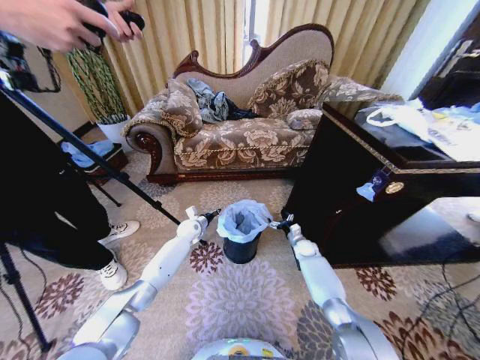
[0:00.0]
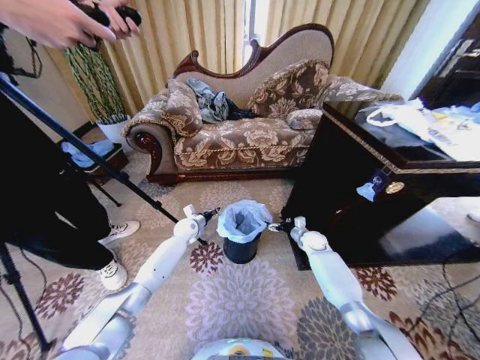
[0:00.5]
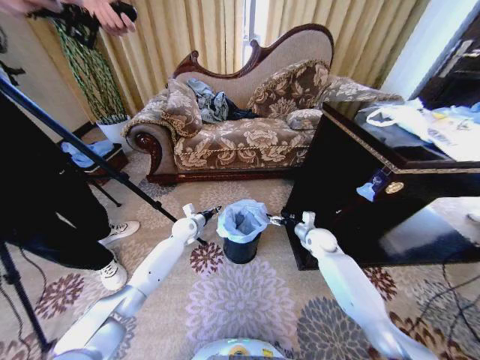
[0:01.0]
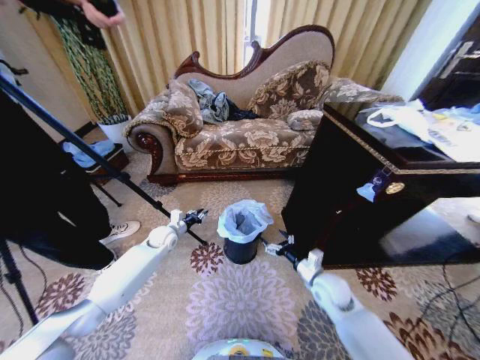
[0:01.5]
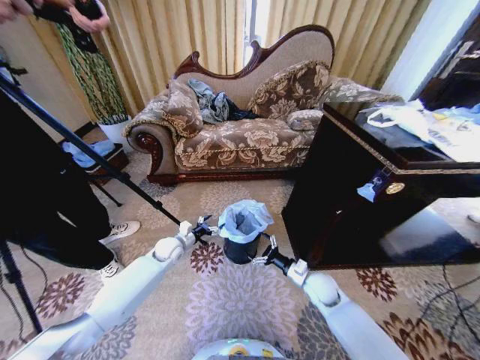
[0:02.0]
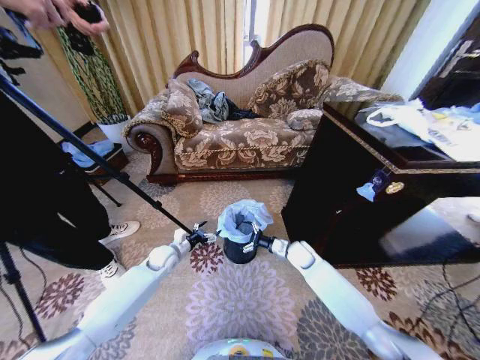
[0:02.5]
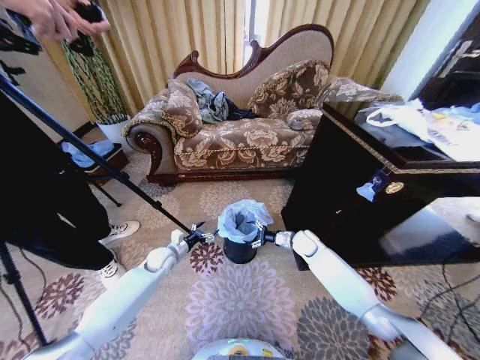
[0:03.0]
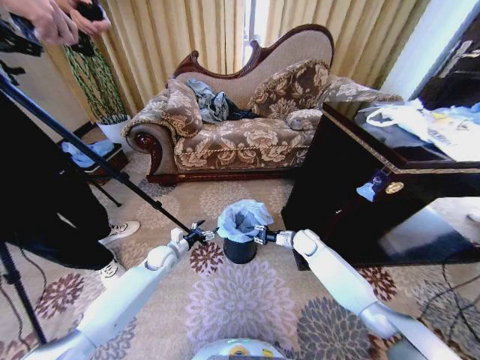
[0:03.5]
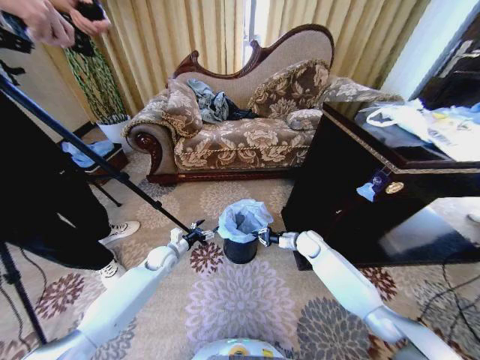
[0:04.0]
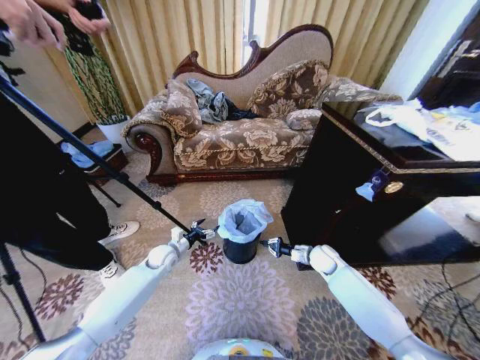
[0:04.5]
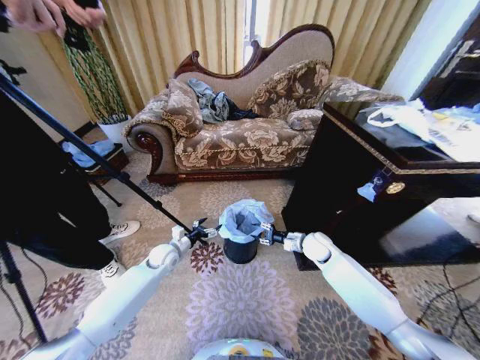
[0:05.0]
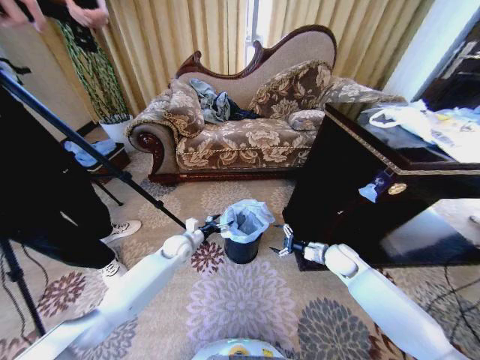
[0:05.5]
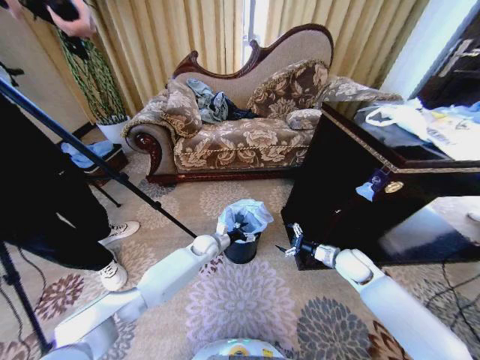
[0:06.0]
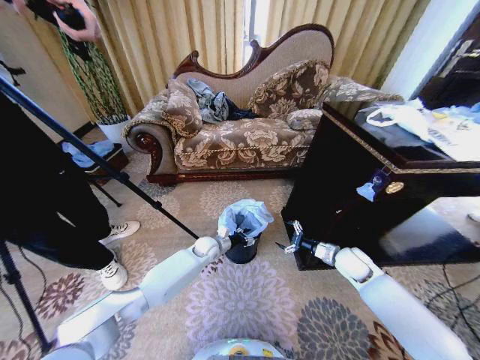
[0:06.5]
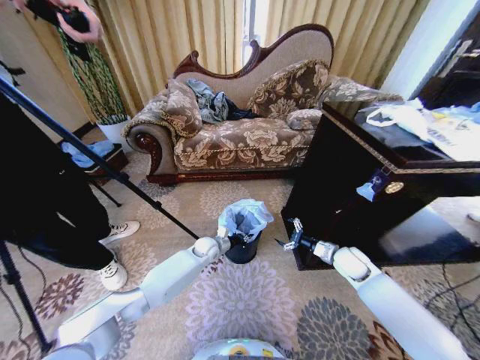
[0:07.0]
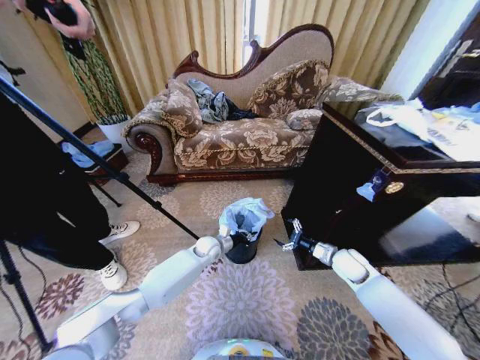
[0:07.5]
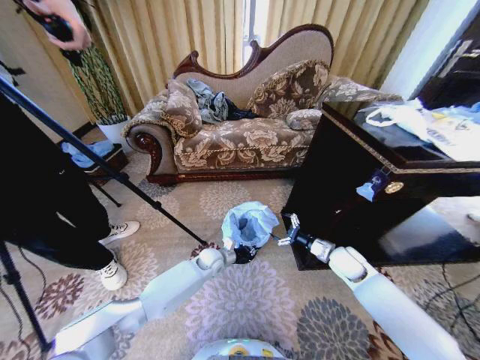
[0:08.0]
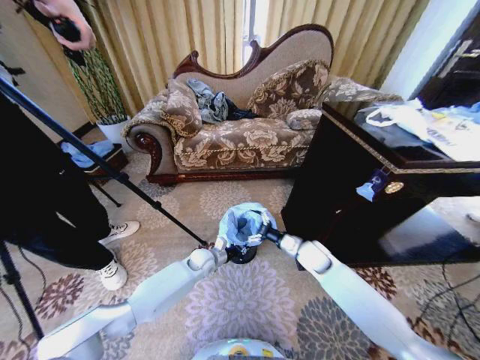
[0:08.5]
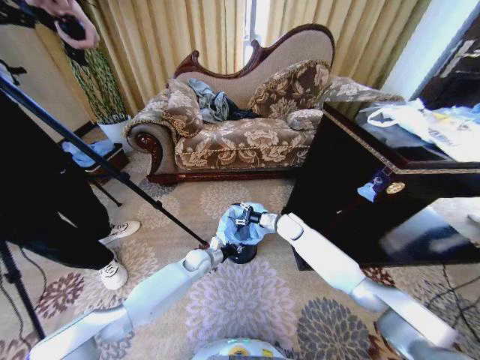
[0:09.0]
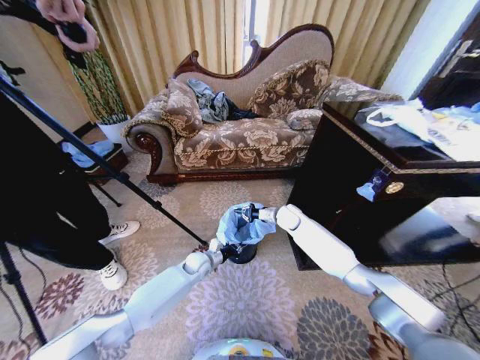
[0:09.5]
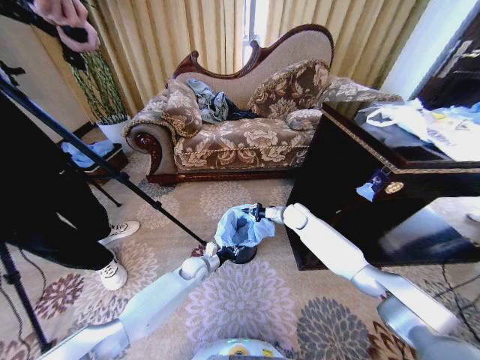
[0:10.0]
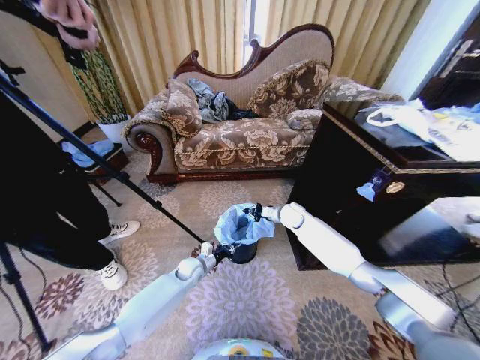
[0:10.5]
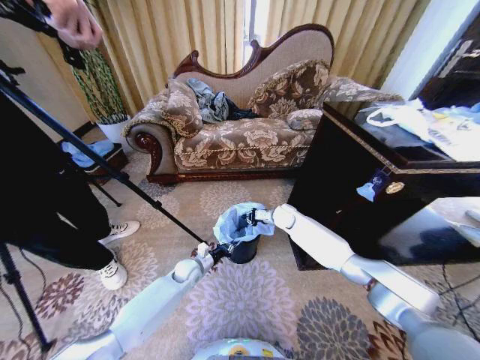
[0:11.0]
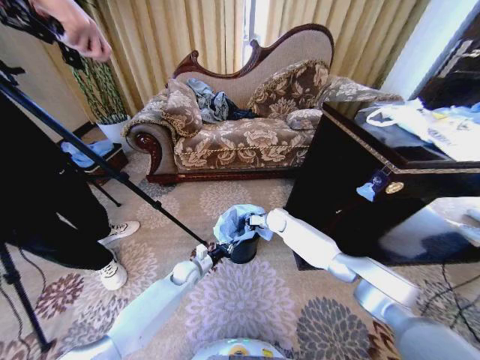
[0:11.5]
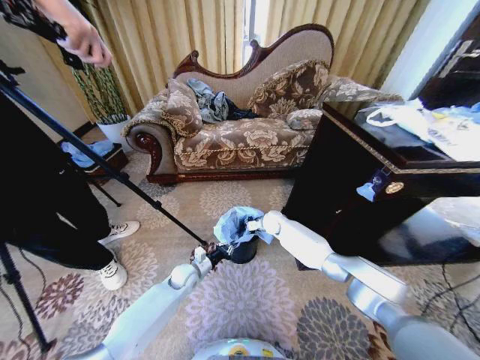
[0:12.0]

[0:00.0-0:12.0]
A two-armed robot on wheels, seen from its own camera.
Task of the whole recording: Place a garbage bag over the trash bin.
0:00.0 to 0:02.0: The right gripper travels backward by approximately 20 cm; the left gripper heads backward, covering roughly 10 cm, and opens.
0:02.0 to 0:04.0: The right gripper moves forward, about 15 cm, and closes up.
0:04.0 to 0:06.0: The left gripper travels to the right by about 15 cm, while the right gripper heads backward and to the right, covering roughly 15 cm, and opens.
0:06.0 to 0:08.0: The left gripper ends up some 5 cm from where it was, and closes up.
0:08.0 to 0:10.0: The left gripper is displaced to the left by some 5 cm; the right gripper moves forward and to the left, about 20 cm, and closes its fingers.
0:10.0 to 0:12.0: The right gripper heads to the left and downward, covering some 10 cm.

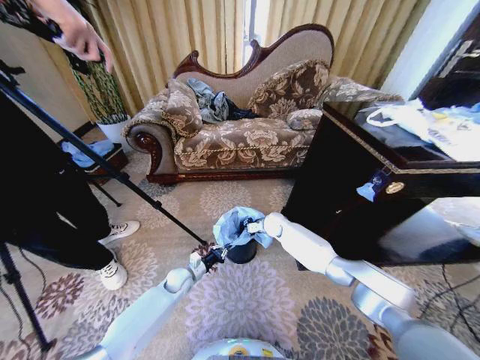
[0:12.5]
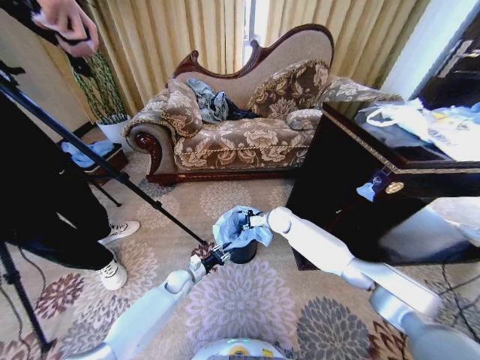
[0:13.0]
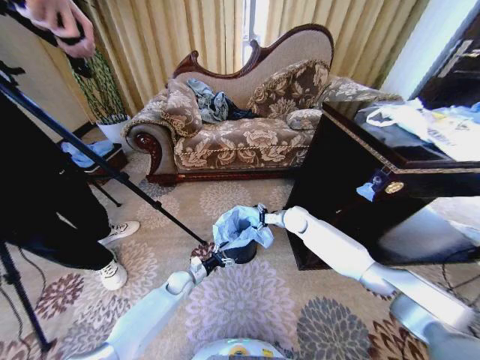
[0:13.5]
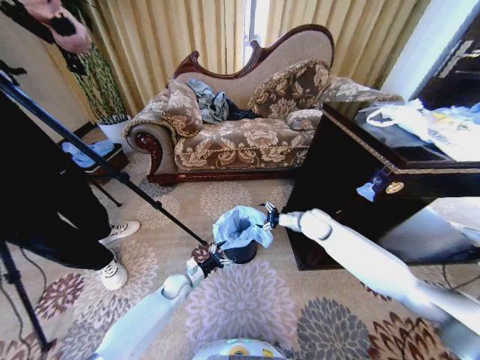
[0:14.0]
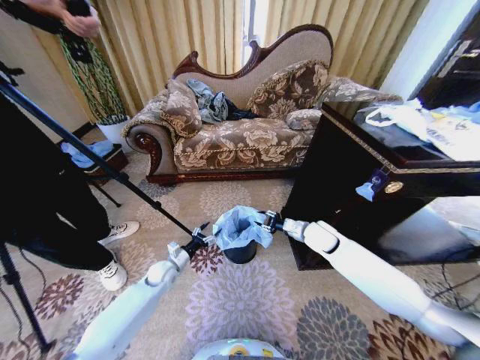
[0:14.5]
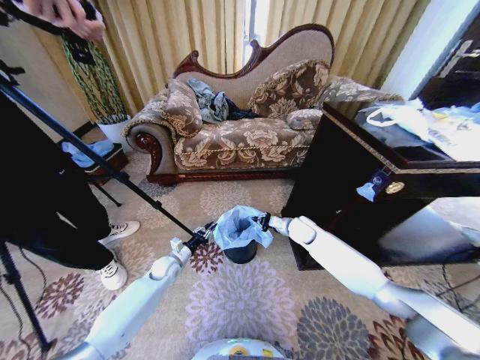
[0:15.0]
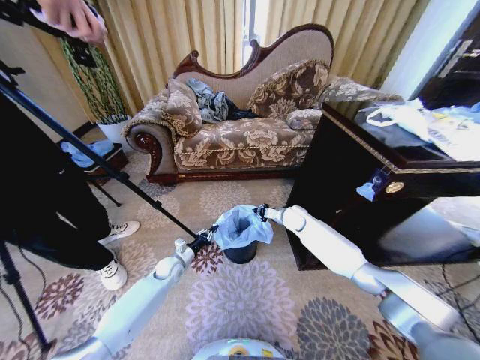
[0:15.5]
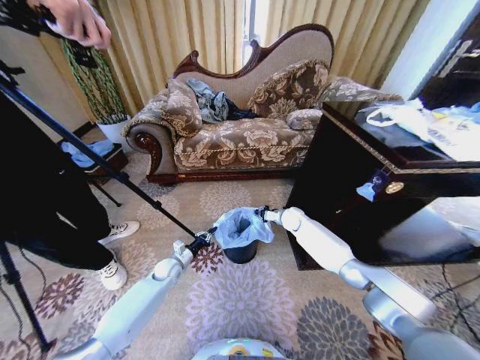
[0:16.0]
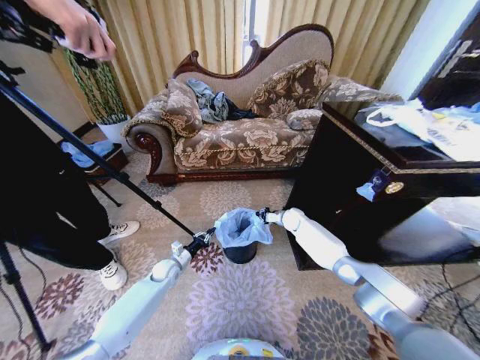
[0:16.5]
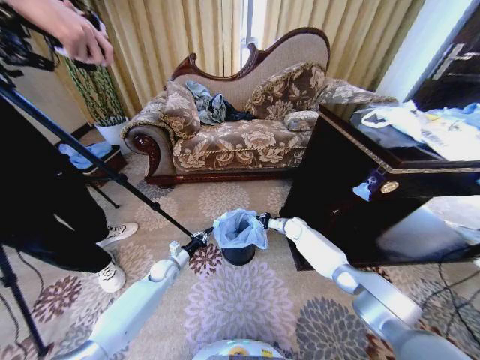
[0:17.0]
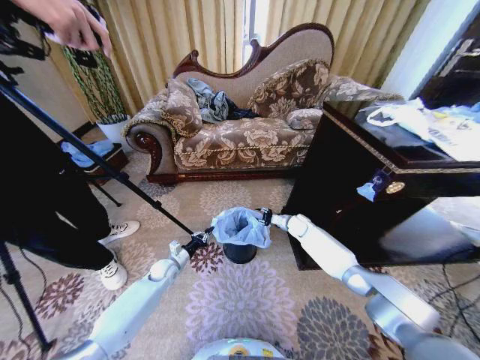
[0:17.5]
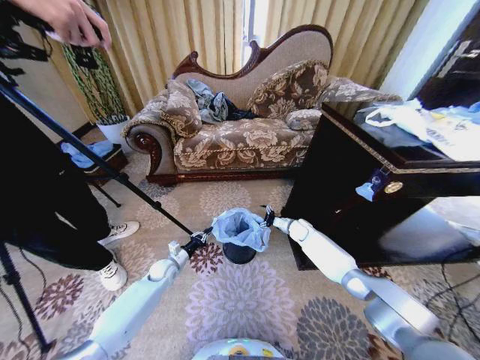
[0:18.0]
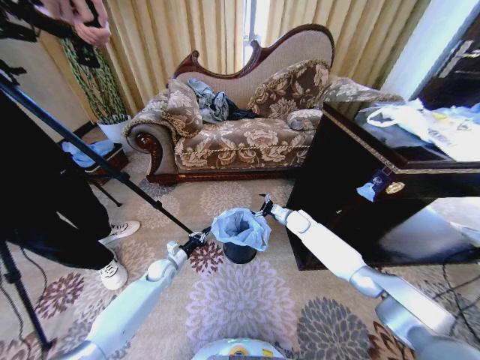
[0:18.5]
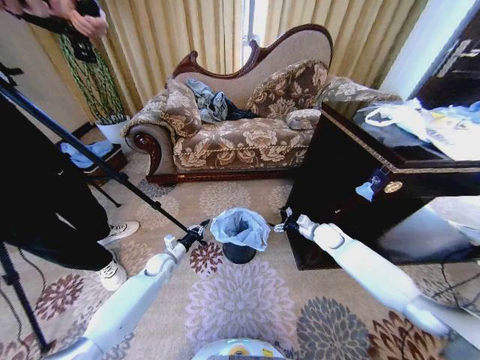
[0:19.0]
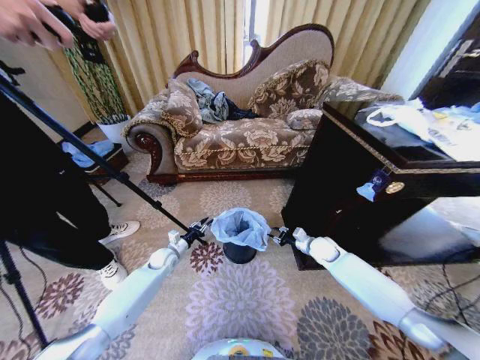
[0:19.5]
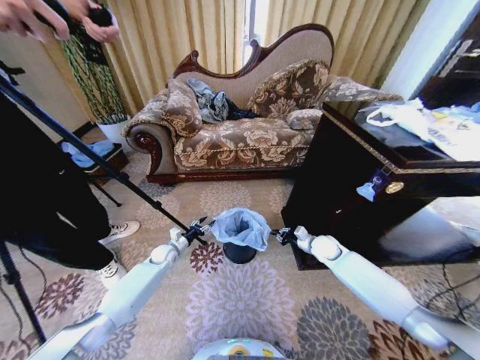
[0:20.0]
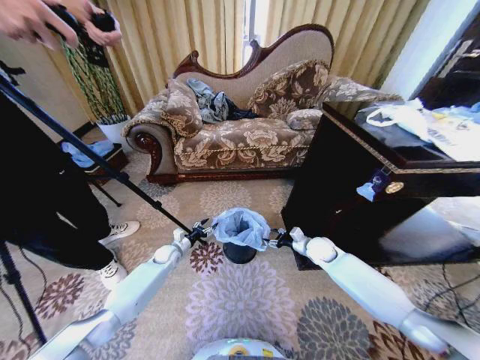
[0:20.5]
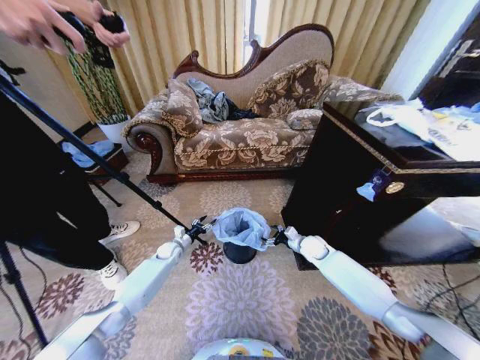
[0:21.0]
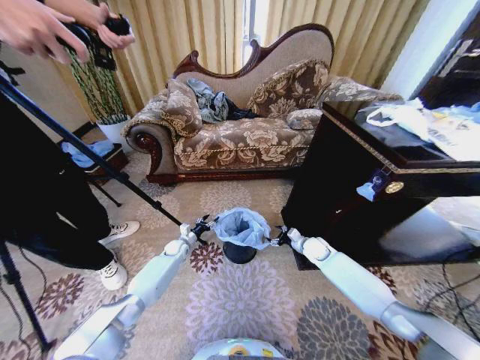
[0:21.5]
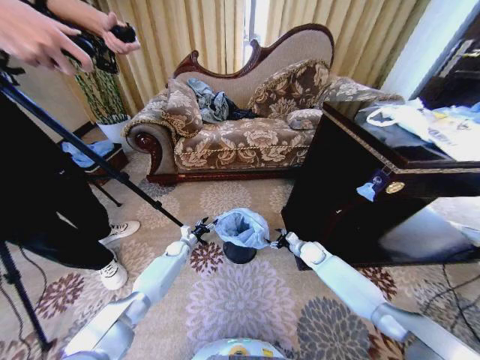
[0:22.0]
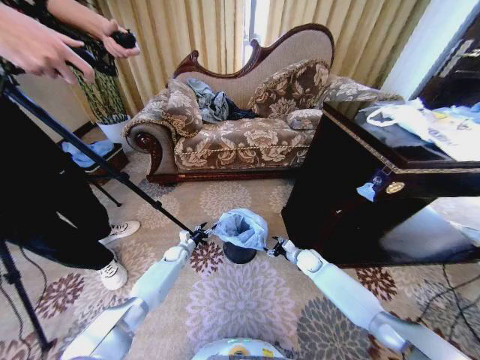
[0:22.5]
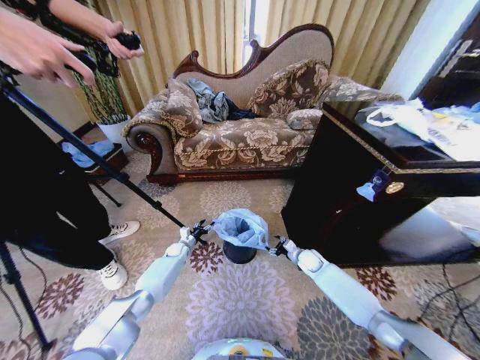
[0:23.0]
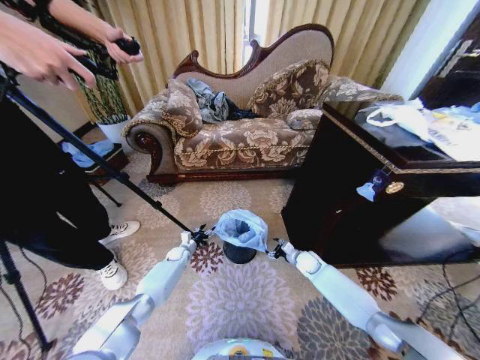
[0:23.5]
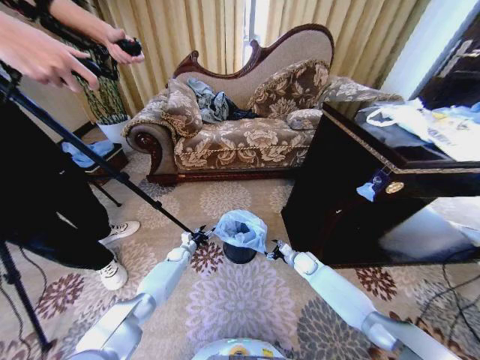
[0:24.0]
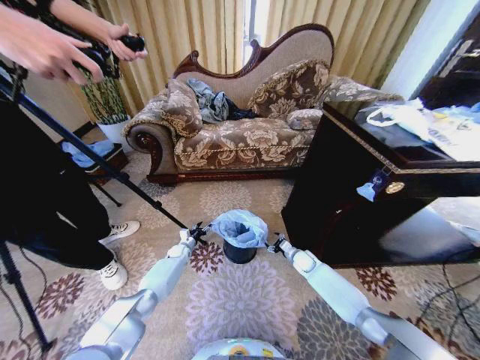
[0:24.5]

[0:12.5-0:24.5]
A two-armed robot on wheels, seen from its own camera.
Task of the whole recording: Place a garbage bag over the trash bin.
0:12.5 to 0:14.5: The right gripper moves backward, to the right and upward, approximately 20 cm, and opens its fingers. Meanwhile the left gripper shifts by roughly 5 cm, and opens up.
0:14.5 to 0:16.5: The left gripper closes. The right gripper goes roughly 20 cm forward and downward, and closes up.
0:16.5 to 0:18.5: The right gripper opens up.
0:18.5 to 0:20.5: The left gripper shifts approximately 5 cm forward, and opens its fingers, while the right gripper moves backward and to the right, approximately 10 cm, and closes and opens again.
0:20.5 to 0:22.5: The left gripper is displaced downward by some 5 cm; the right gripper shifts approximately 10 cm downward.
0:22.5 to 0:24.5: The grippers make only small movements.

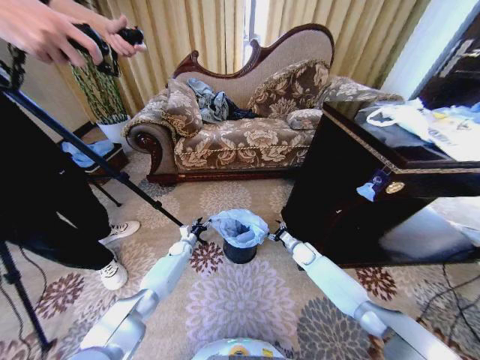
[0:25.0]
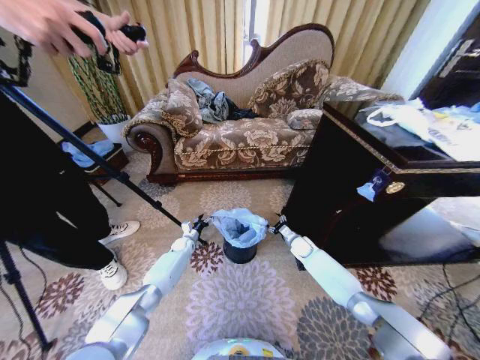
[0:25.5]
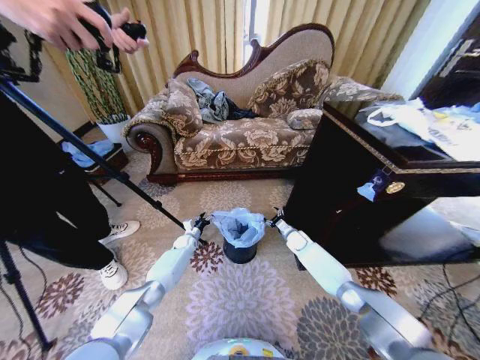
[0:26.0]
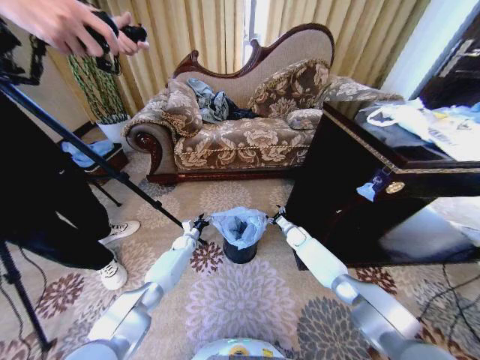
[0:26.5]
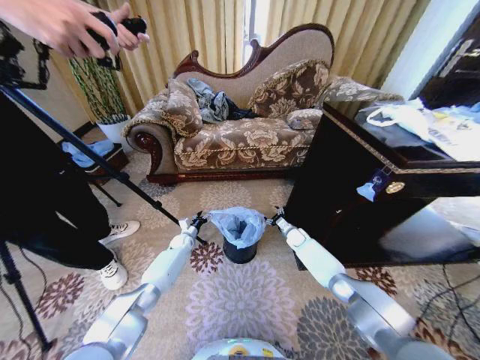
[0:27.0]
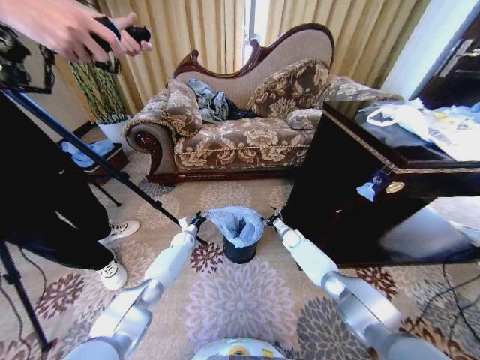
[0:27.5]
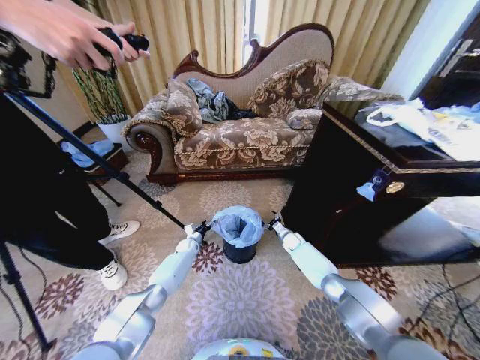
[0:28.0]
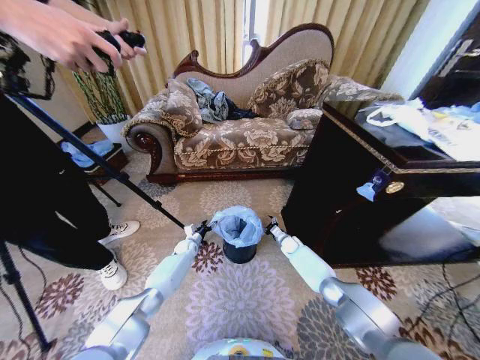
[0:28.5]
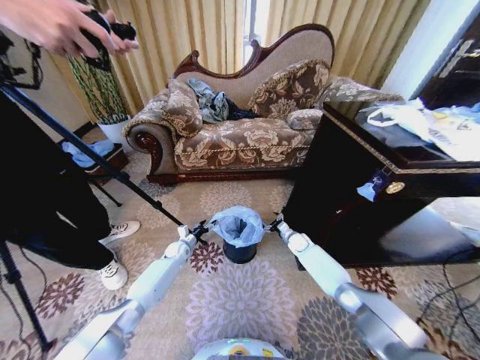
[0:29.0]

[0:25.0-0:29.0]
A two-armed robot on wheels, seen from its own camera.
Task of the whole recording: Place a garbage bag over the trash bin.
0:25.0 to 0:27.0: The right gripper moves forward, about 5 cm.
0:27.0 to 0:29.0: The grippers make only small movements.
